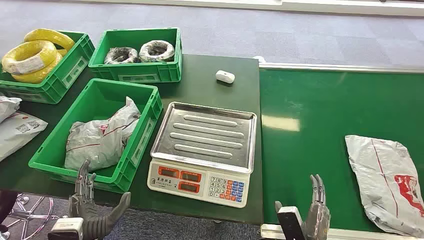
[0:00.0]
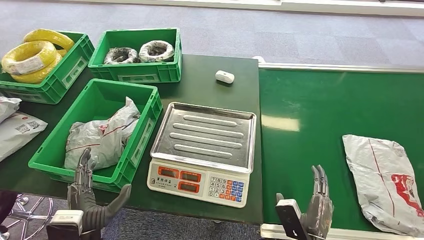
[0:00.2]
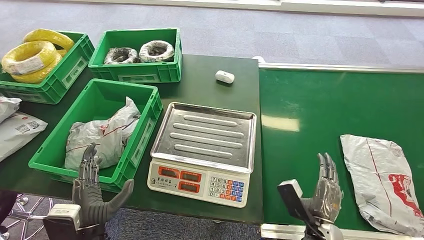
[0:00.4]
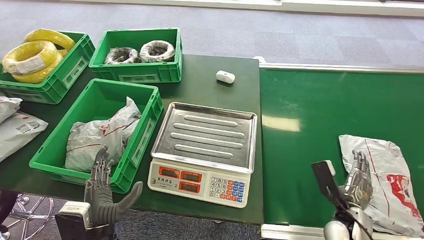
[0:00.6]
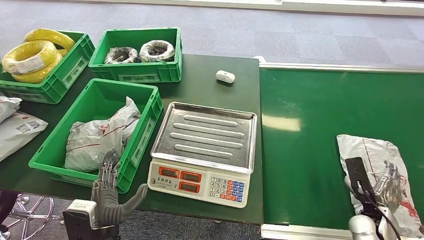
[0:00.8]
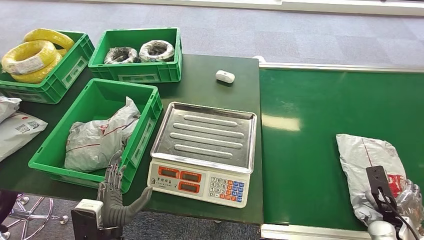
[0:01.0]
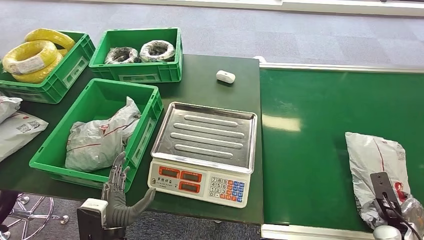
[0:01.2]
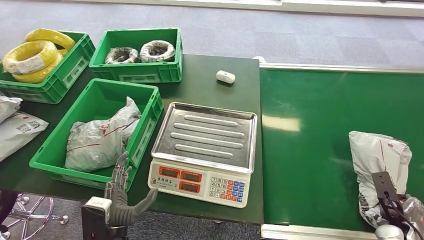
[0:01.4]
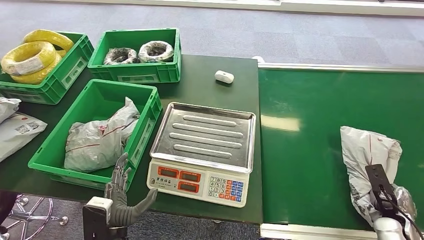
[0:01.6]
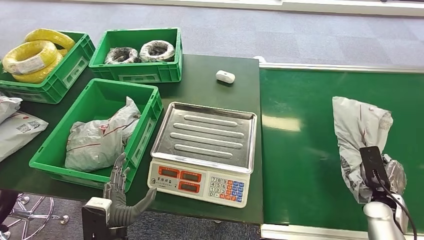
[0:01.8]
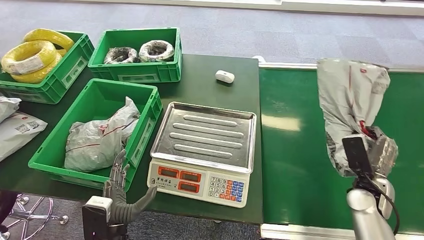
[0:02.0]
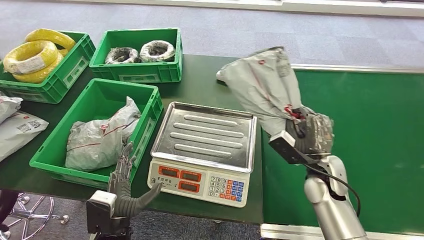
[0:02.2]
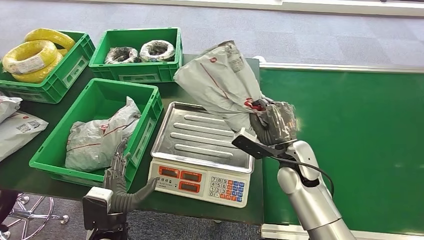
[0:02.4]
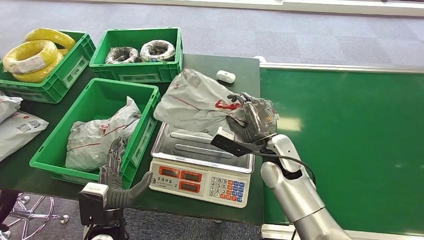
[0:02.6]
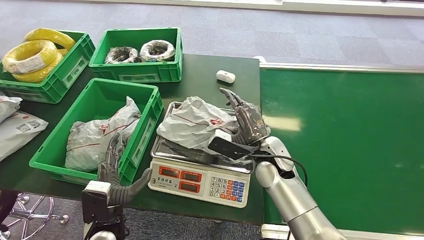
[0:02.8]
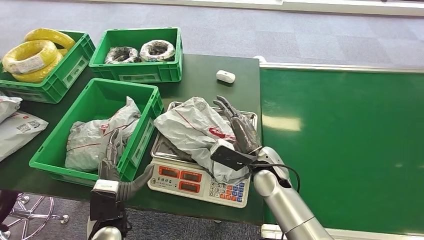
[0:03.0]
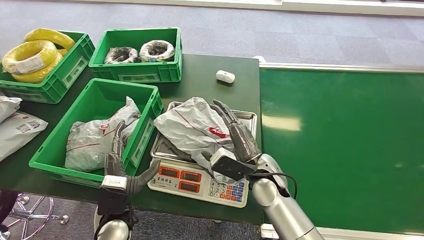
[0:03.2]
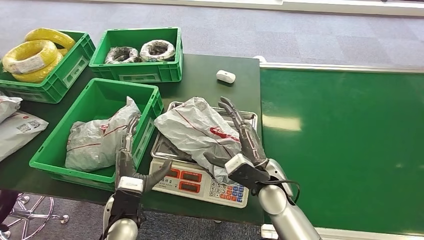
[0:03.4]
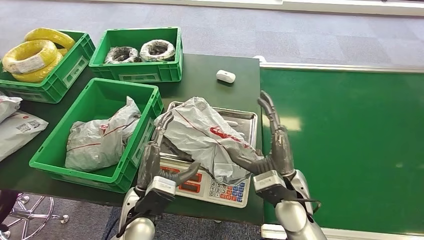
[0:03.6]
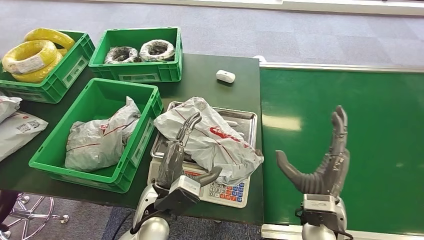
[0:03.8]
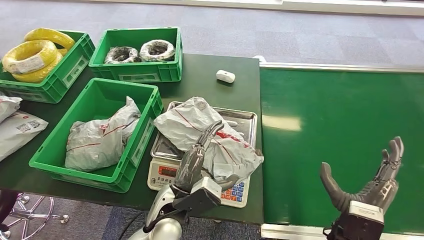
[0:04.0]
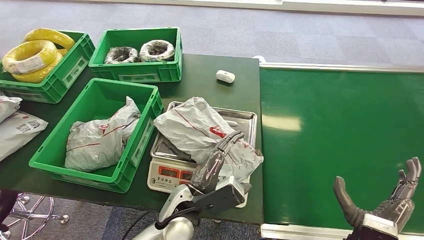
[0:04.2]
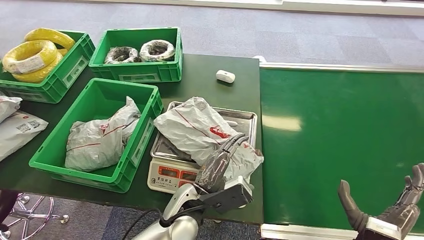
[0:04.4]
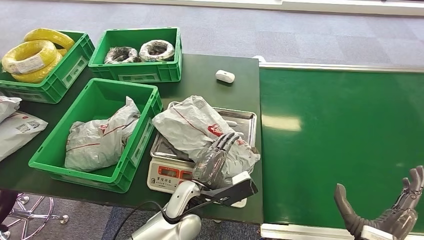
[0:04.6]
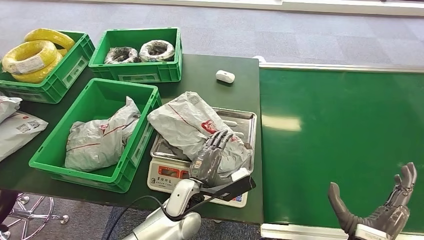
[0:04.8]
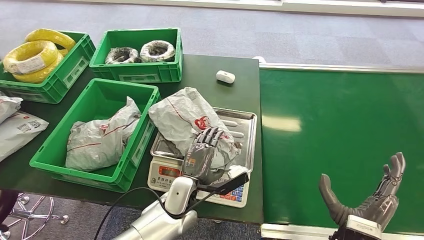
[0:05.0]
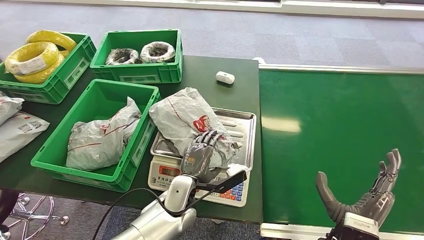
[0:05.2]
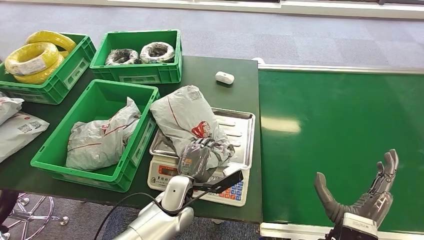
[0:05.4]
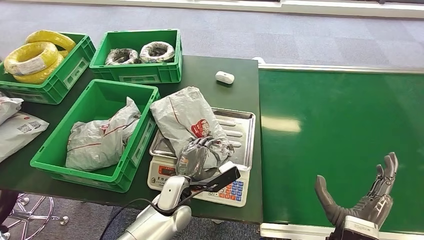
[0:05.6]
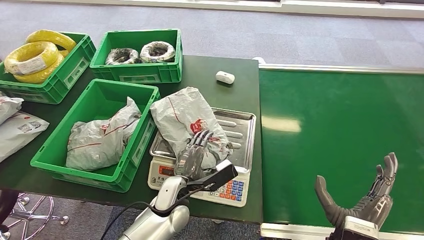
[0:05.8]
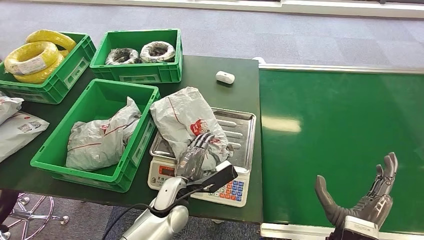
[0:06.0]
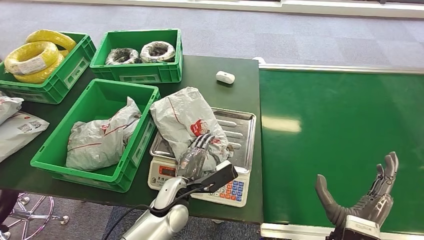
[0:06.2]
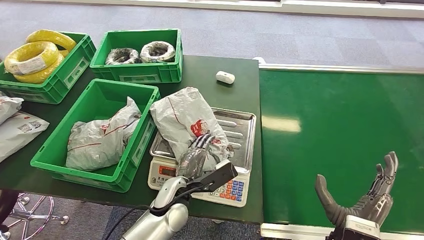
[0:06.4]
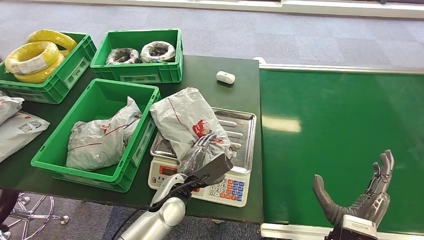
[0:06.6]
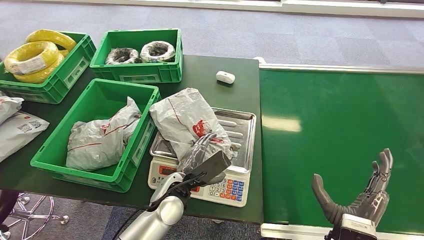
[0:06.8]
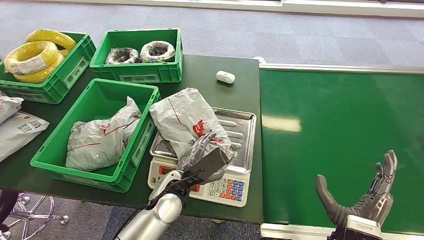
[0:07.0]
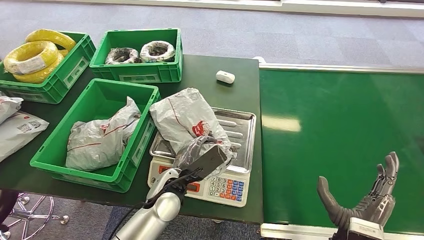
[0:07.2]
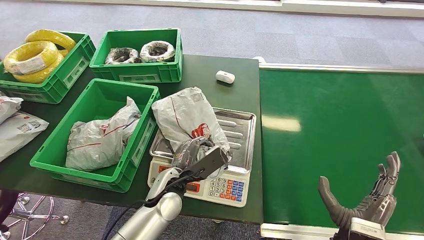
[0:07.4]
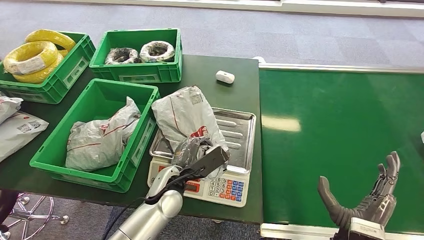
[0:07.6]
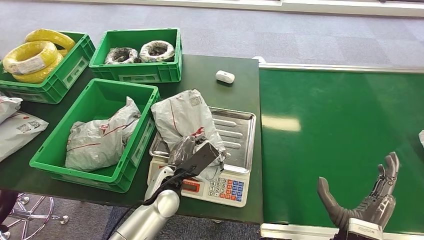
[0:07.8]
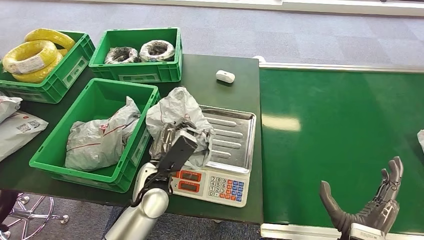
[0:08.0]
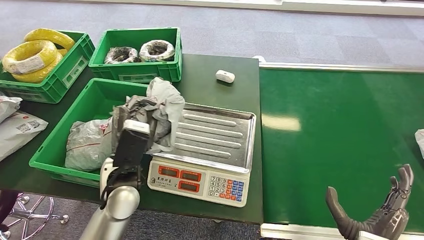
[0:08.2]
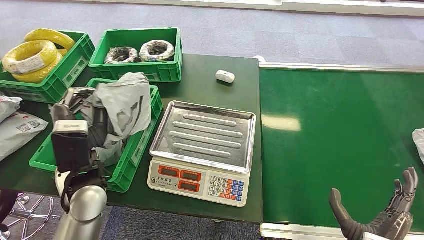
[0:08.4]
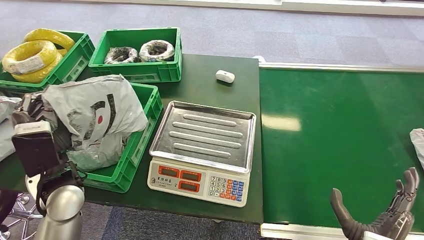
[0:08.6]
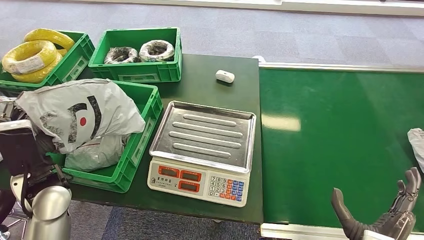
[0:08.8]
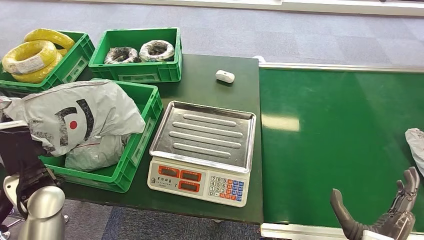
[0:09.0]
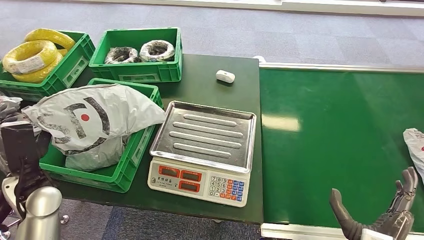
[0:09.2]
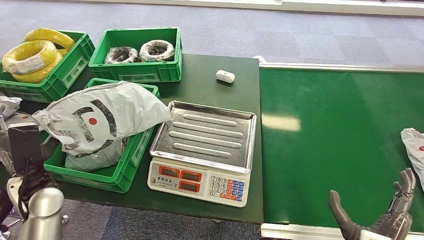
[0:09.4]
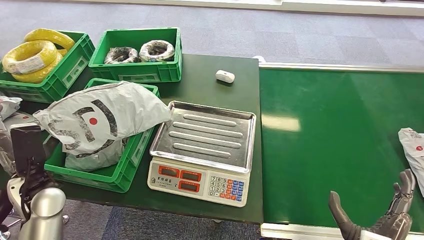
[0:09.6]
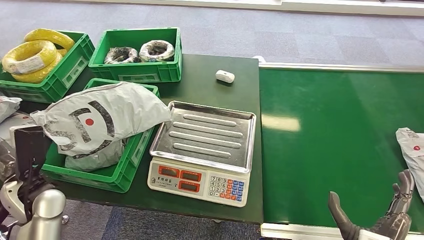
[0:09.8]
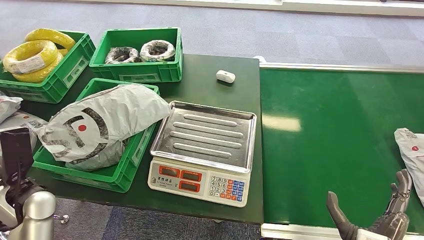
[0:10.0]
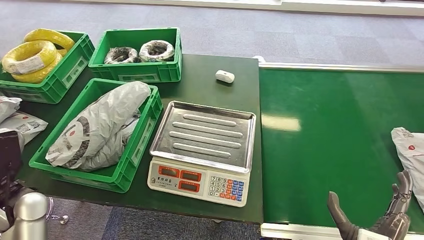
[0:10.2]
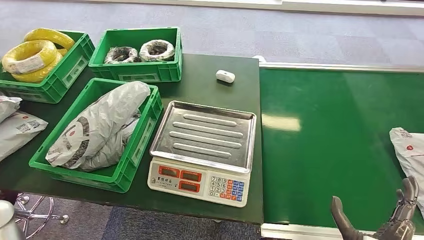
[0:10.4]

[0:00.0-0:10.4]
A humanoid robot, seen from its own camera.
Step, 0:00.0 to 0:02.0: Pick up the package from the conveyor belt.
Step, 0:02.2 to 0:03.4: Place the package onto the inbound machine.
Step, 0:03.6 to 0:08.2: Pick up the package from the inbound machine.
Step, 0:08.4 to 0:10.2: Place the package into the parcel locker.
0:01.4 to 0:03.0: The left hand moves forward, roughly 5 cm. Meanwhile the right hand is displaced to the left by about 35 cm.
0:03.0 to 0:04.4: The right hand heads backward and to the right, covering roughly 25 cm. Meanwhile the left hand moves to the right, roughly 15 cm.
0:09.0 to 0:10.4: The left hand shifts some 10 cm to the left.

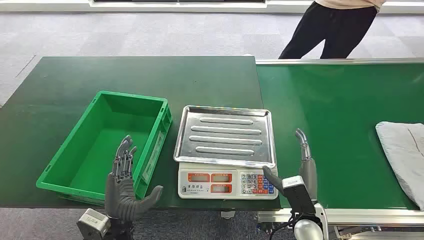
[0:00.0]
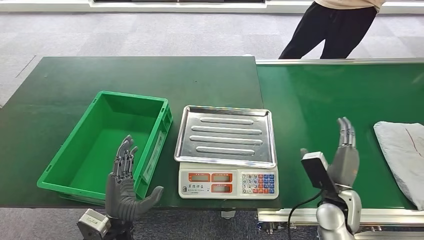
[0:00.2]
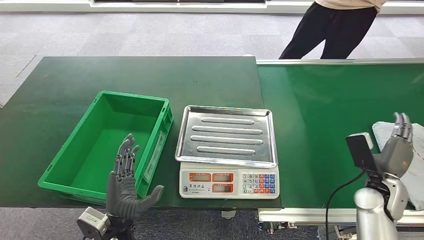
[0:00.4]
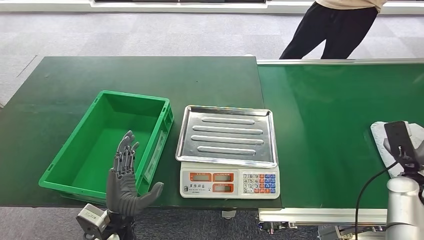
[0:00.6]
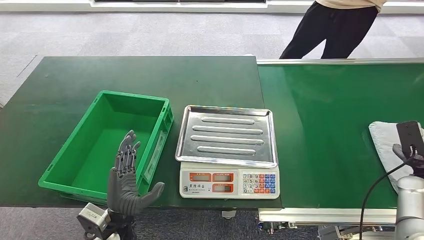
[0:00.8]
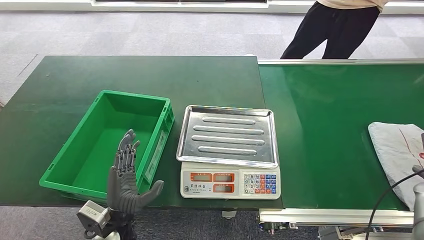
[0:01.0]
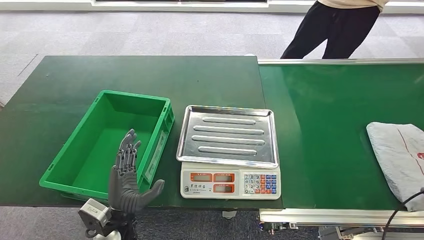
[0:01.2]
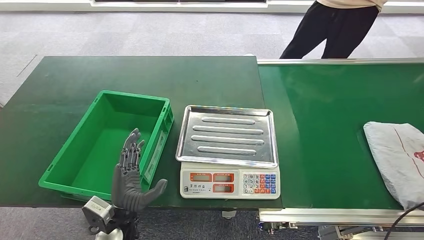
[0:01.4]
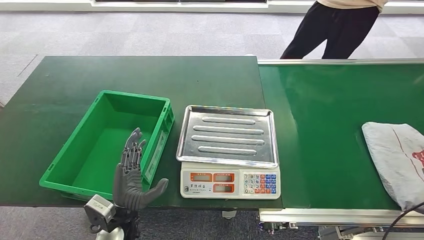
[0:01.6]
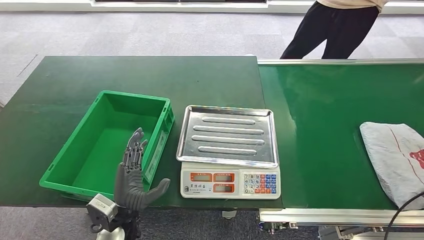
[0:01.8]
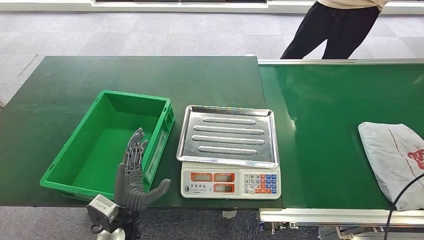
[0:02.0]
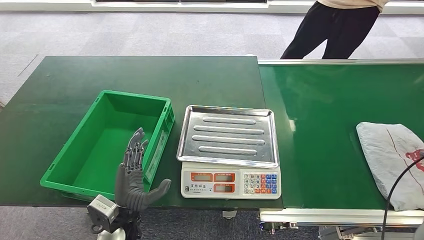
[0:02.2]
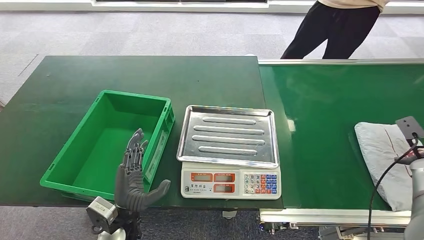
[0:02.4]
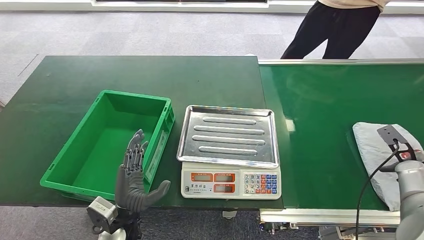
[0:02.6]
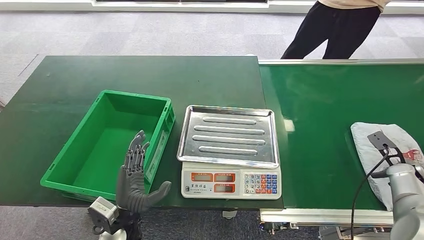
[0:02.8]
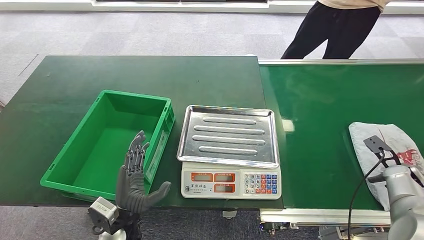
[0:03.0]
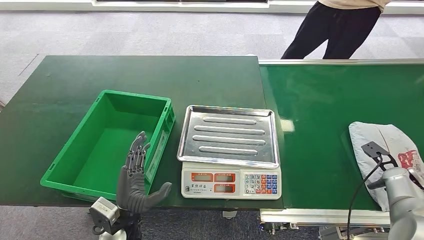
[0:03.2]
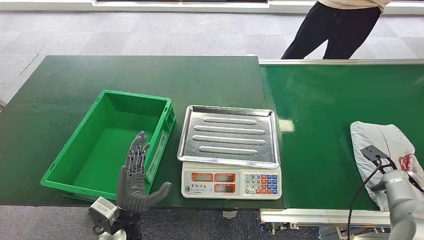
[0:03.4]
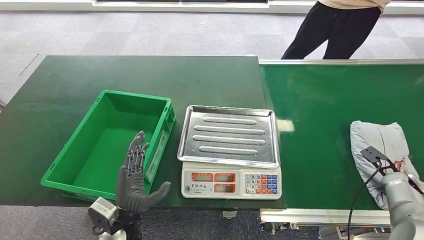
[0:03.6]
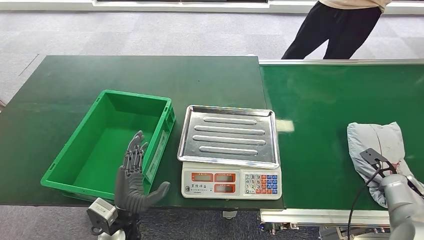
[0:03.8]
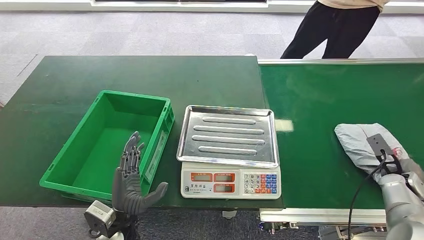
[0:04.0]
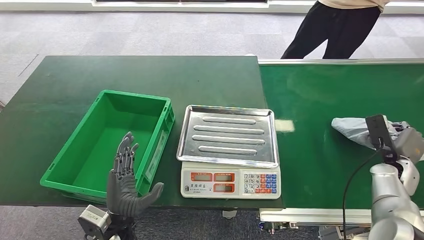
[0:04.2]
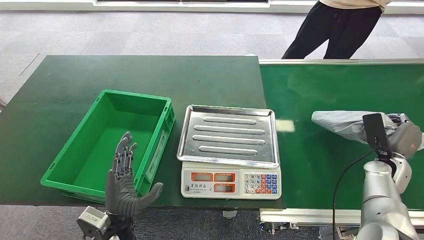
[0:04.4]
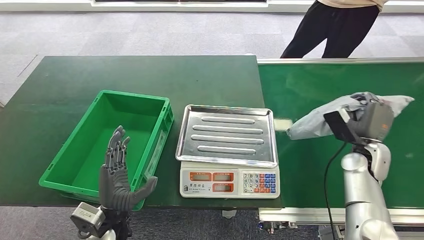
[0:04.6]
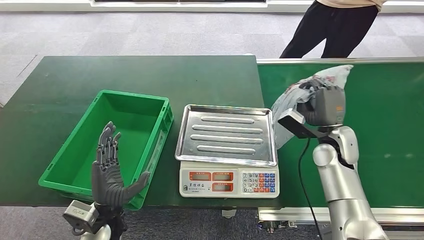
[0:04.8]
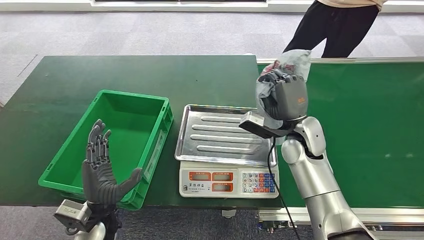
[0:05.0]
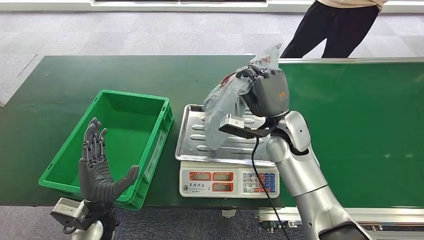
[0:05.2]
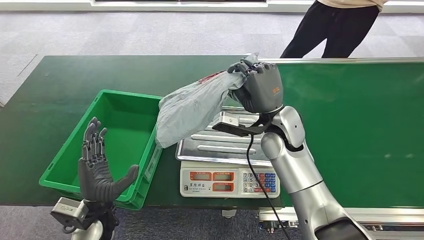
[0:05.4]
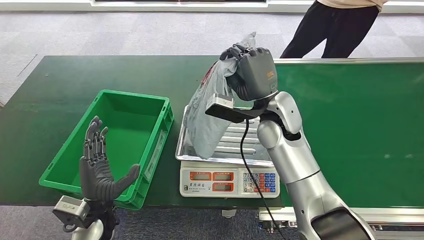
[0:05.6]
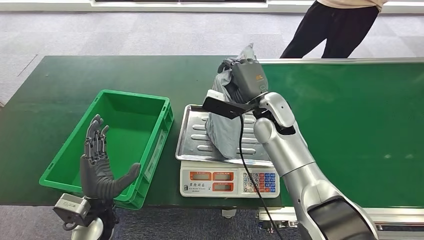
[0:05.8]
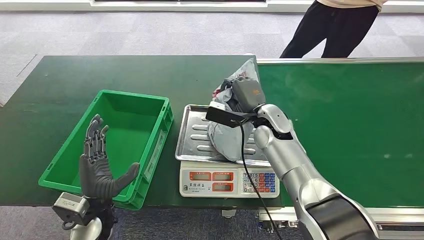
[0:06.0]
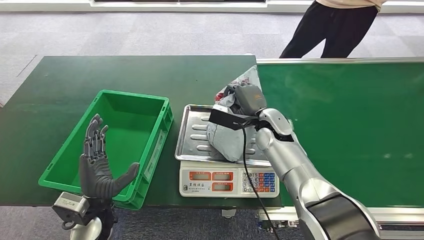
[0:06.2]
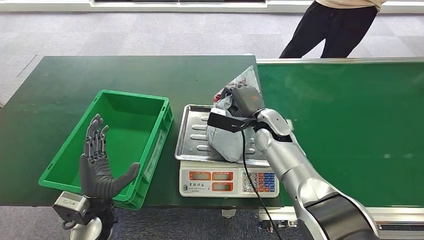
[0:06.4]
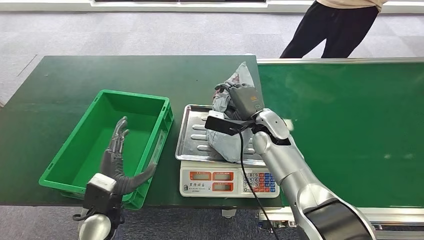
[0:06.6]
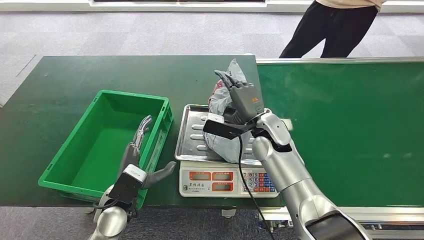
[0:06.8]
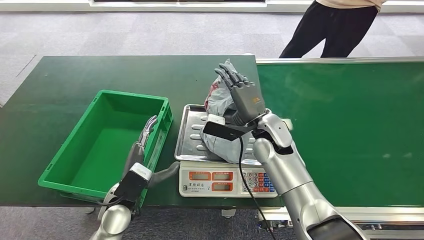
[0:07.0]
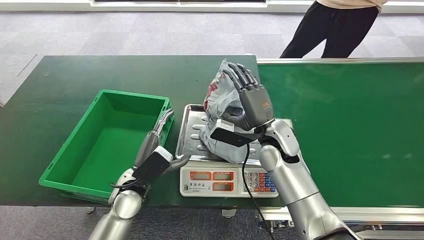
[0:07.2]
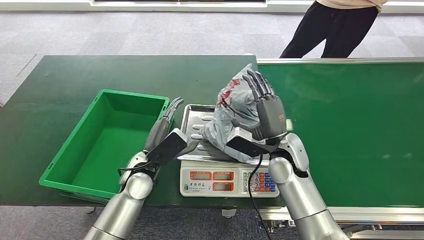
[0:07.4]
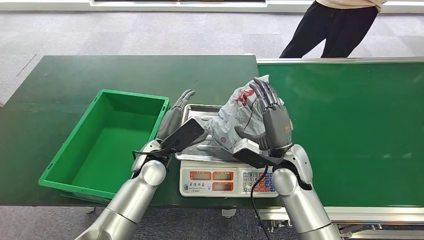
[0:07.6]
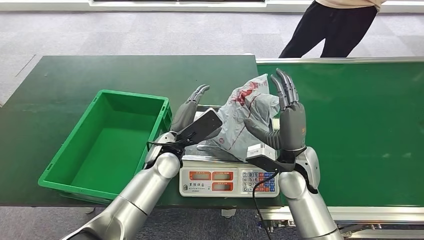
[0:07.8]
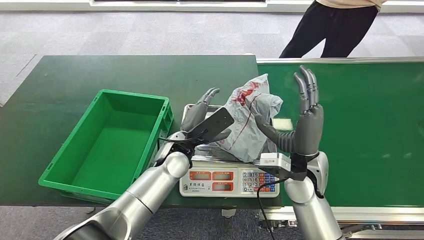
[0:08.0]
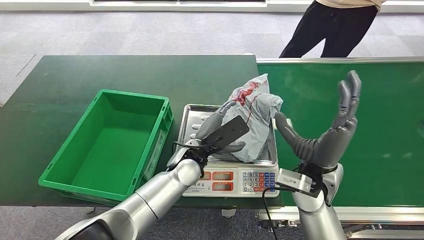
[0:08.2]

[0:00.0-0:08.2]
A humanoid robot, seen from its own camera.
Step, 0:00.0 to 0:04.4: Pick up the package from the conveyor belt.
Step, 0:04.8 to 0:08.0: Place the package onto the inbound machine.
0:01.6 to 0:03.2: The right hand moves forward and to the left, some 15 cm.
0:05.0 to 0:06.6: The right hand travels to the left by about 5 cm, and goes upward and returns, approximately 5 cm each way.
